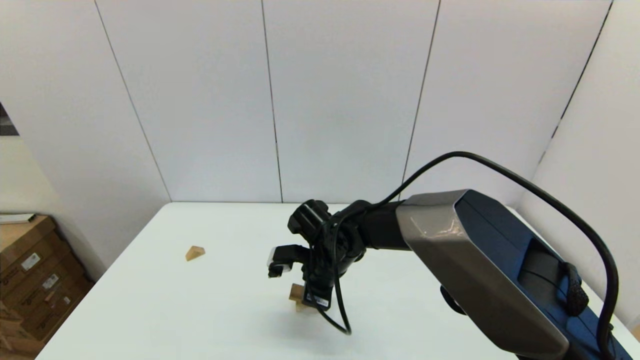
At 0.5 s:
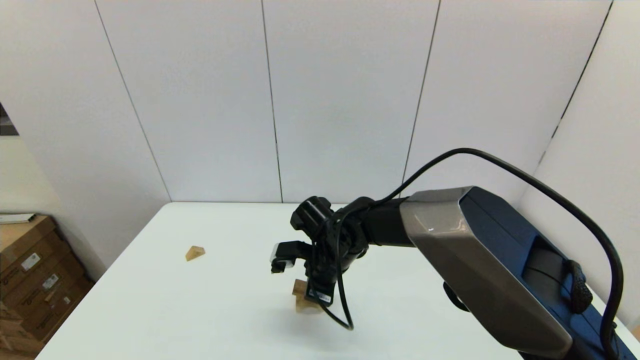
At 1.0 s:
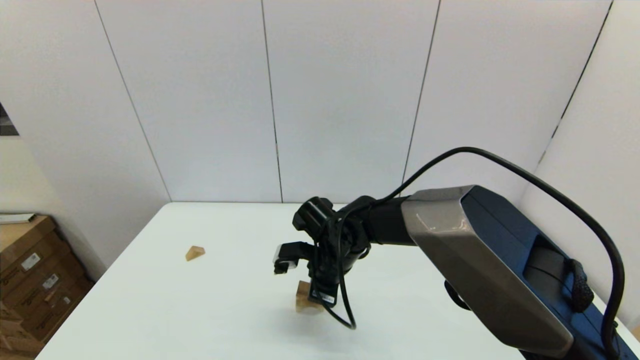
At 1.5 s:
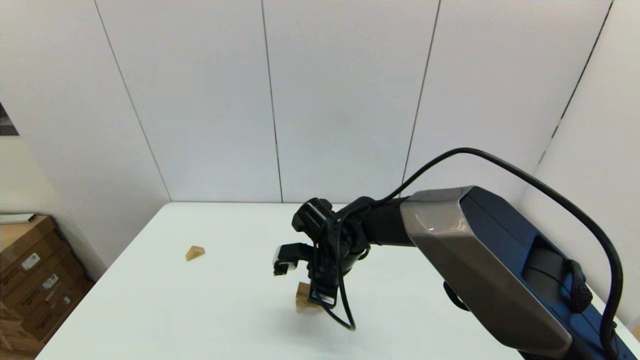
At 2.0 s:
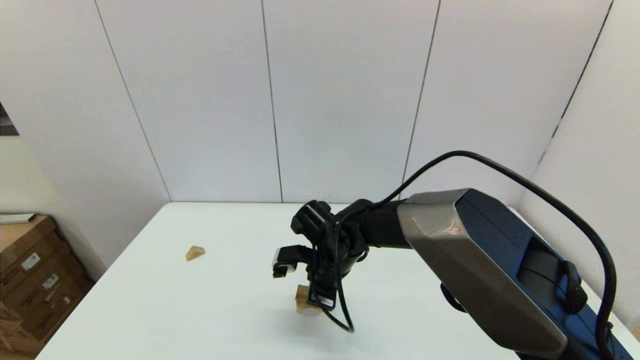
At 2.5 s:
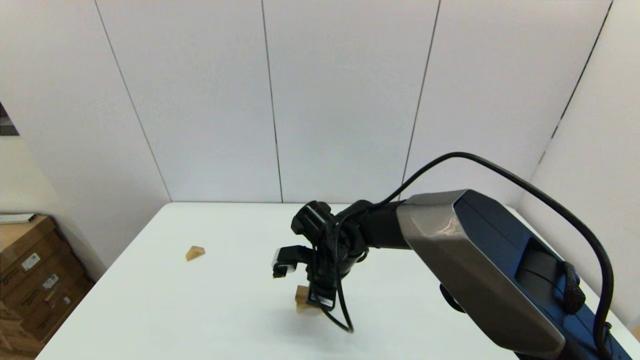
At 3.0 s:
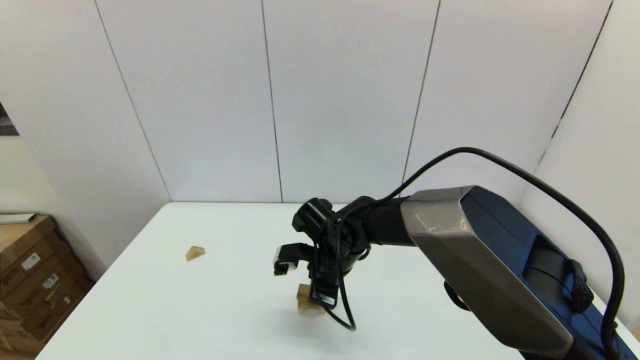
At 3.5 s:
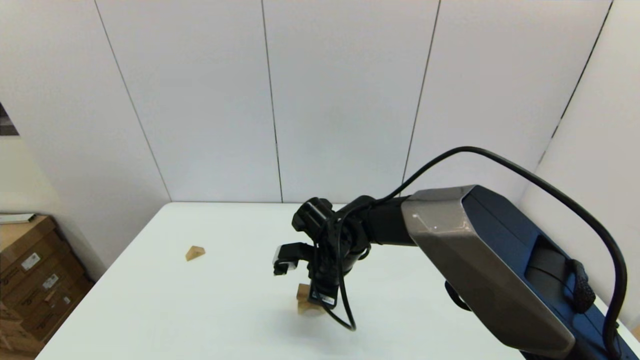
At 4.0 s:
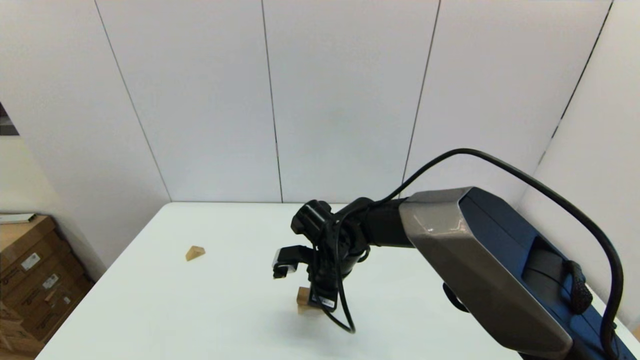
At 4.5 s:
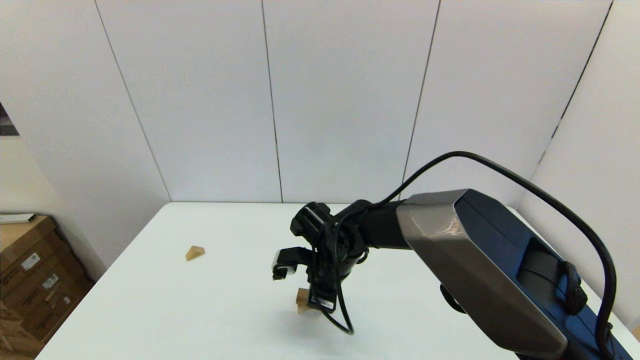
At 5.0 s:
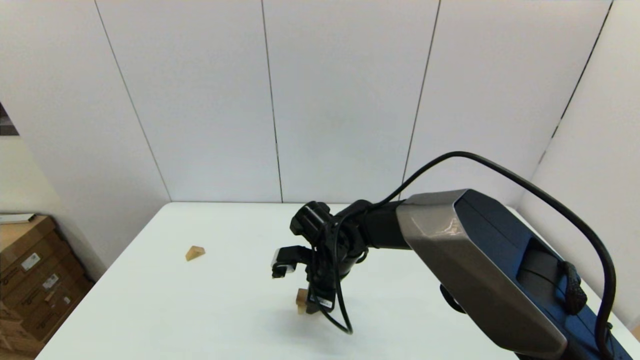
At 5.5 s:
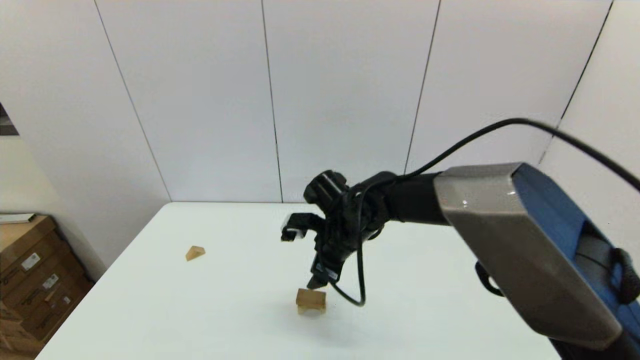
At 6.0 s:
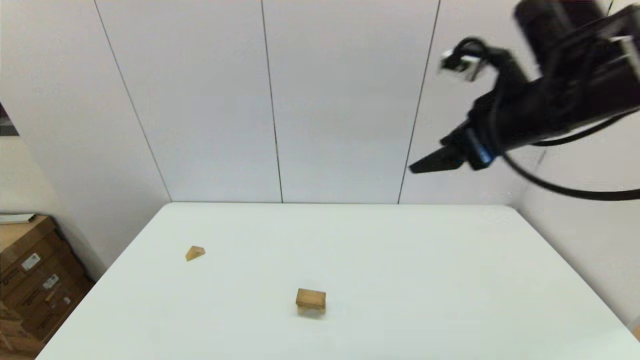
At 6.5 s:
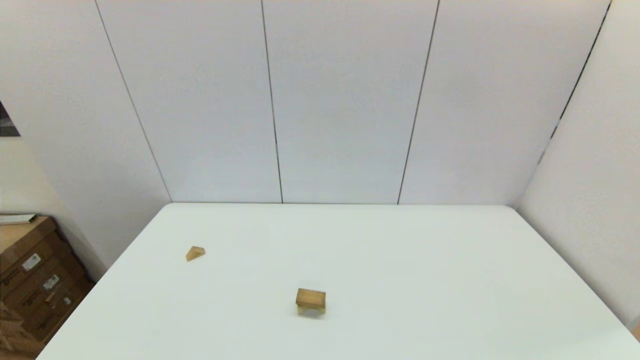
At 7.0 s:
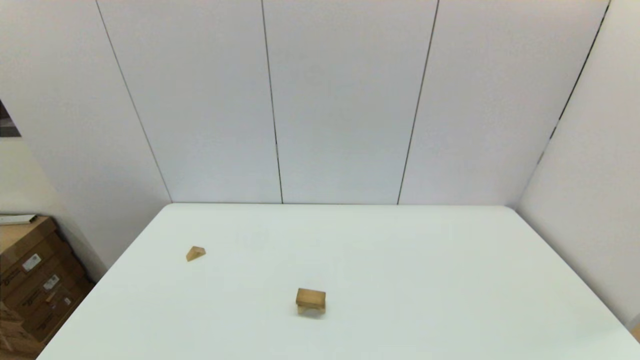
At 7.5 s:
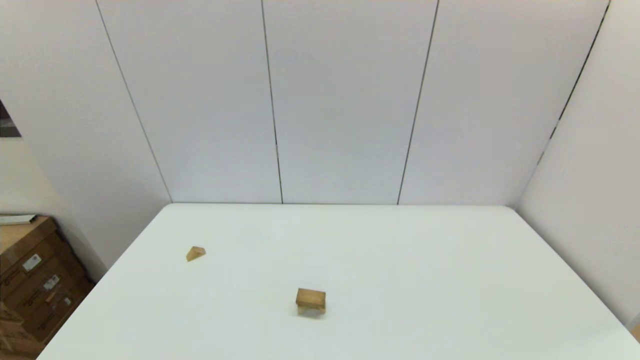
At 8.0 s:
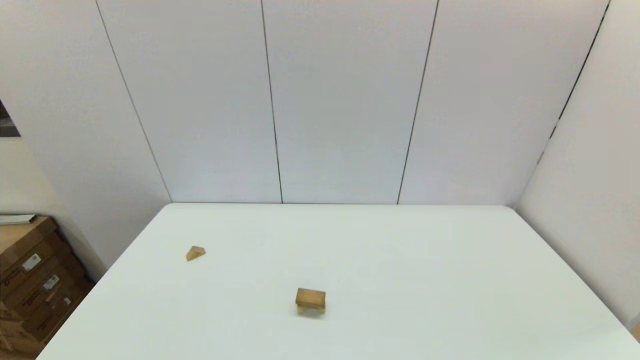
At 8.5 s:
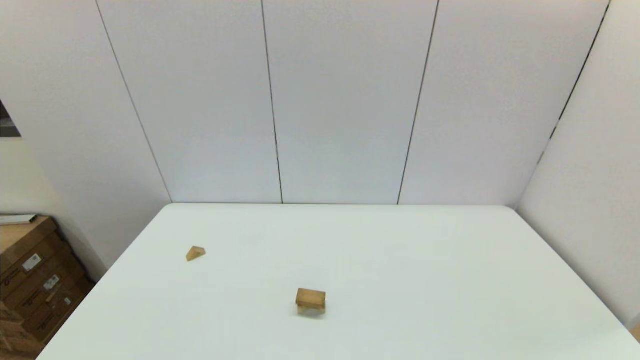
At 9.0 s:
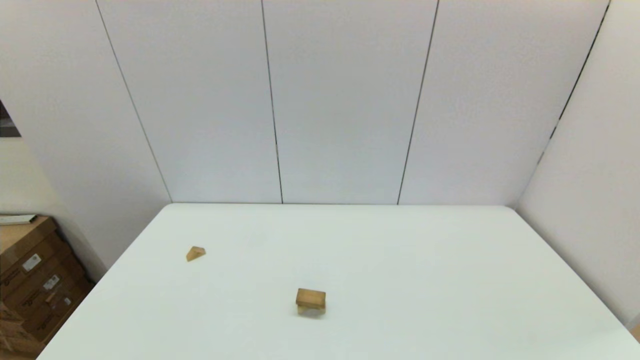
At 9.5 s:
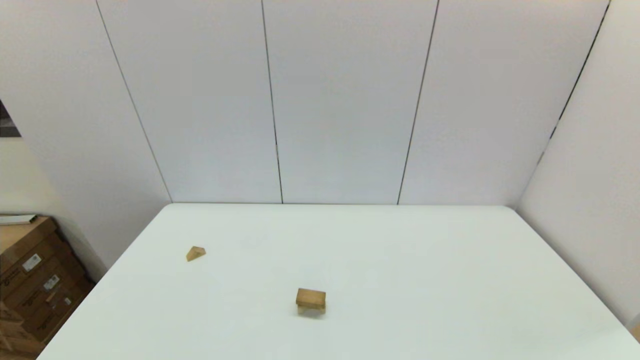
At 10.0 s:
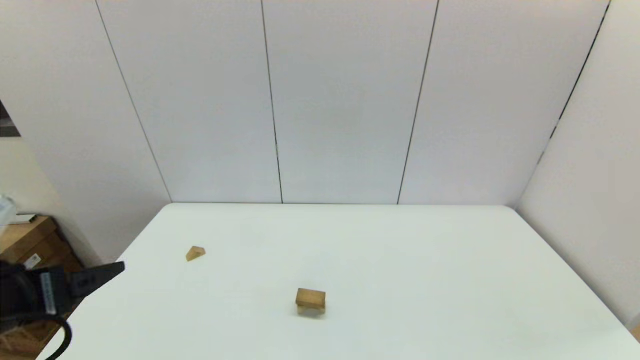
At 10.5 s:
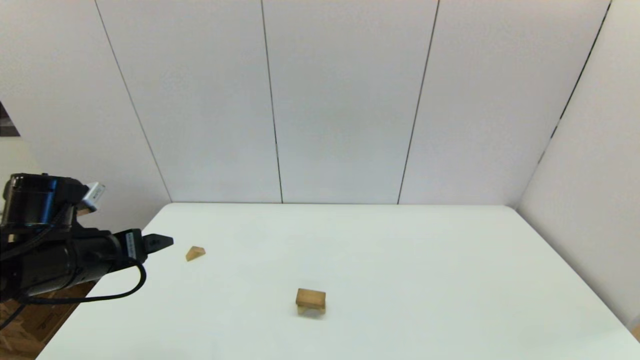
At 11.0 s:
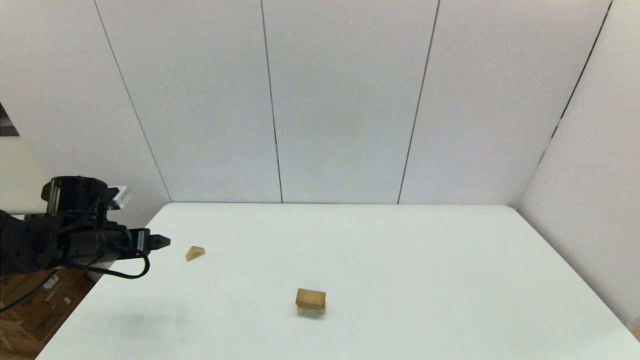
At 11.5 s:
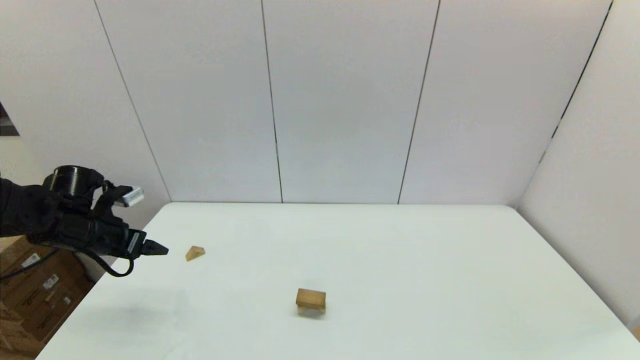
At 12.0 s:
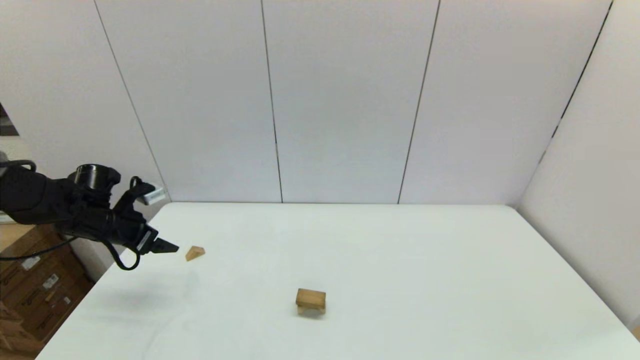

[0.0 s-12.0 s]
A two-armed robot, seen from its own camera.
Task of the whole recording: place the arched building blocks in the center of the table, set up the rectangular building blocks, and then set up the triangular building blocks.
Step, 0.0 to 4.5 s: Place the box-shaped block onto the arch-shaped block with the right gripper.
0.0 to 4.0 s: Both grippers stay put.
4.0 to 6.0 s: The right gripper heads upward and to the right, covering some 35 cm, and opens.
6.0 to 8.0 s: The right gripper goes roughly 40 cm backward and downward.
8.0 to 10.0 s: The left gripper shifts roughly 20 cm forward and upward.
10.0 to 12.0 s: The left gripper shifts roughly 25 cm forward and downward.

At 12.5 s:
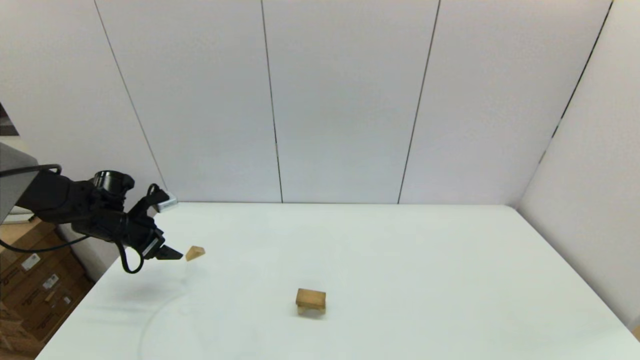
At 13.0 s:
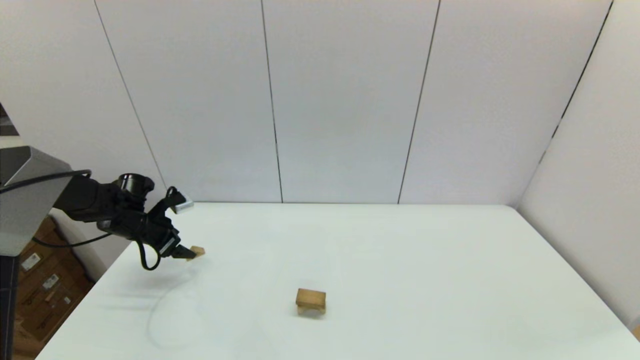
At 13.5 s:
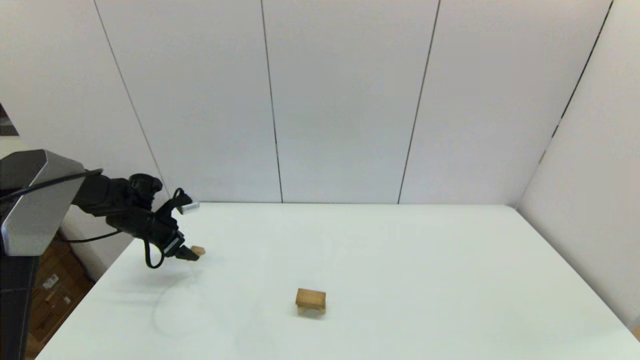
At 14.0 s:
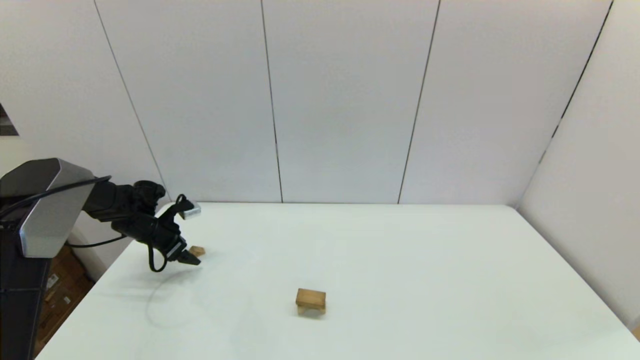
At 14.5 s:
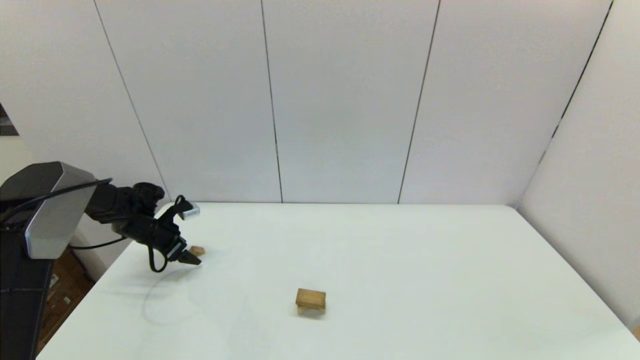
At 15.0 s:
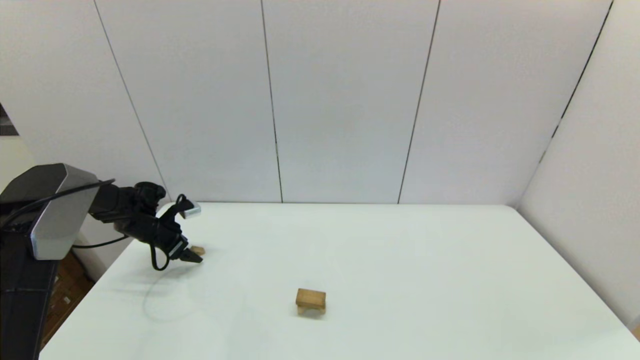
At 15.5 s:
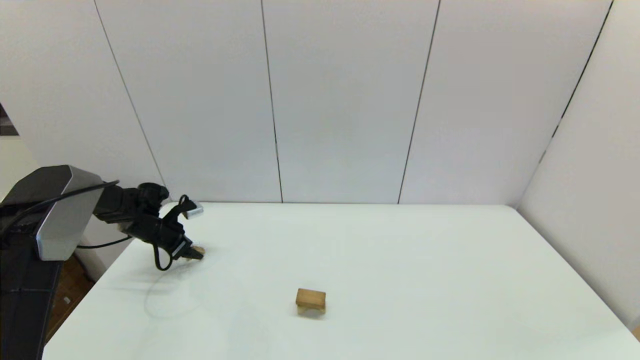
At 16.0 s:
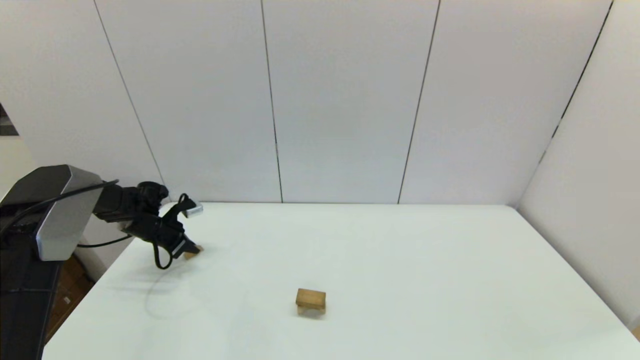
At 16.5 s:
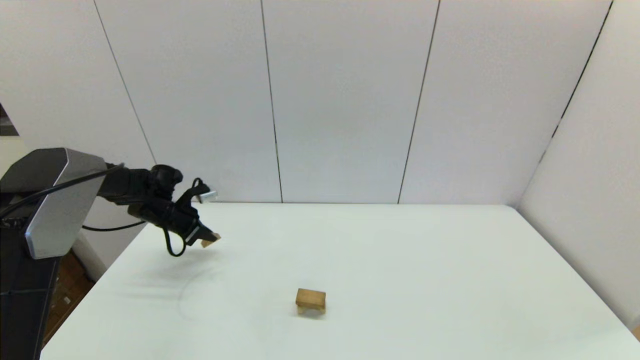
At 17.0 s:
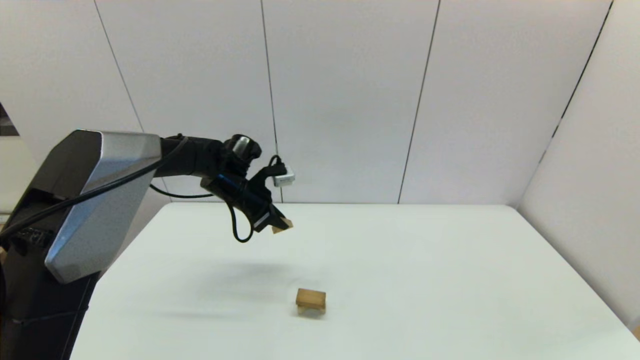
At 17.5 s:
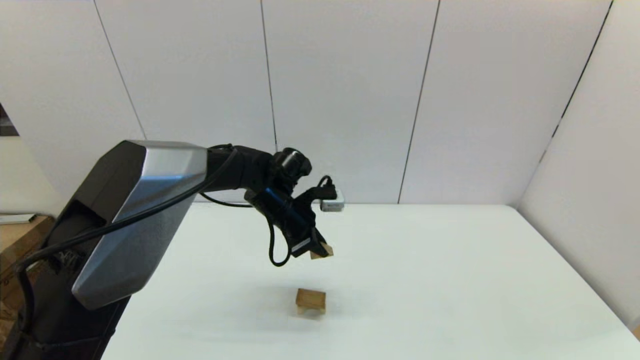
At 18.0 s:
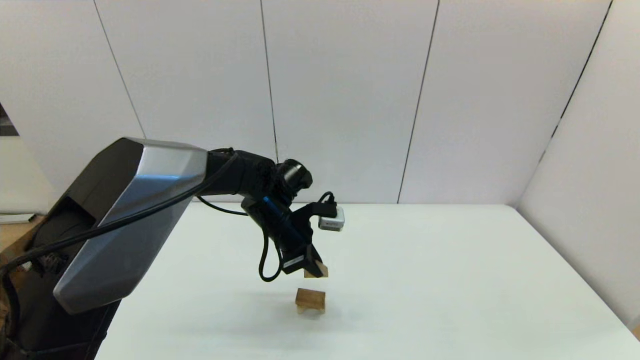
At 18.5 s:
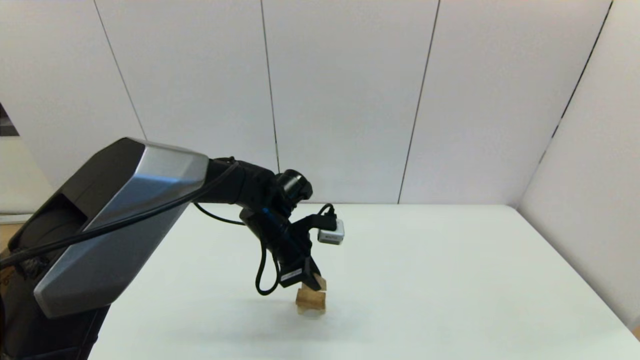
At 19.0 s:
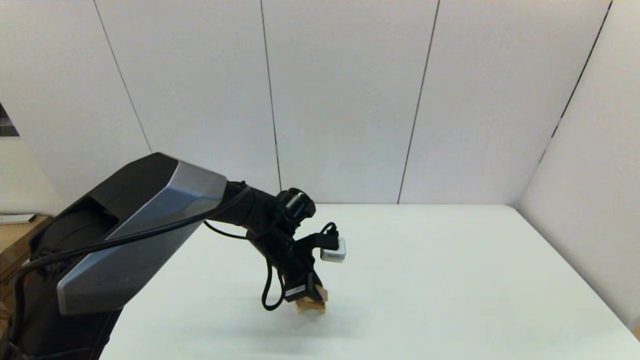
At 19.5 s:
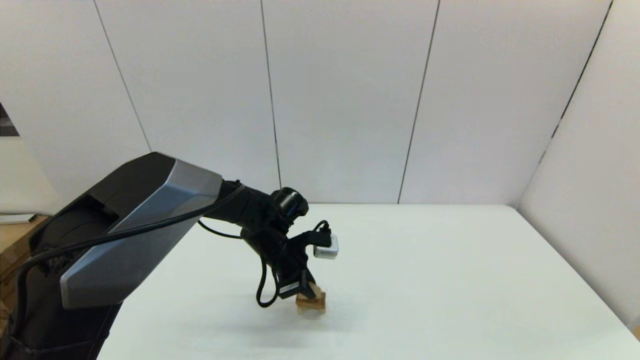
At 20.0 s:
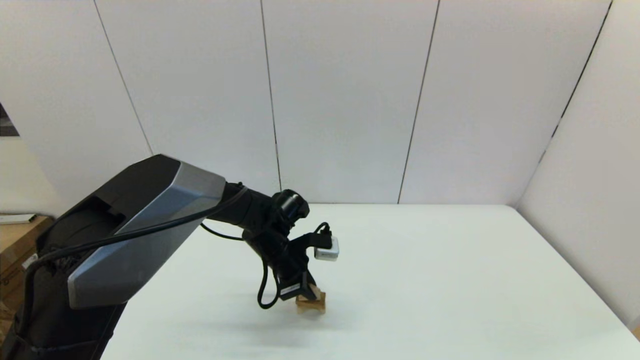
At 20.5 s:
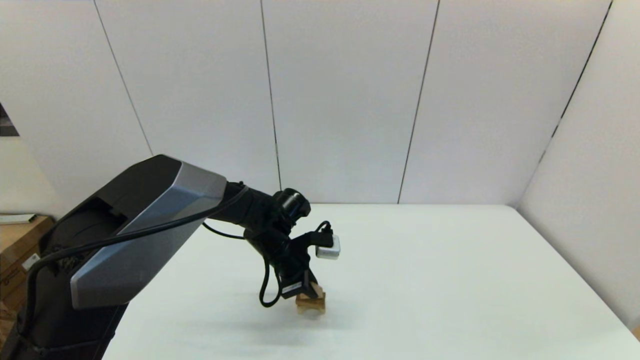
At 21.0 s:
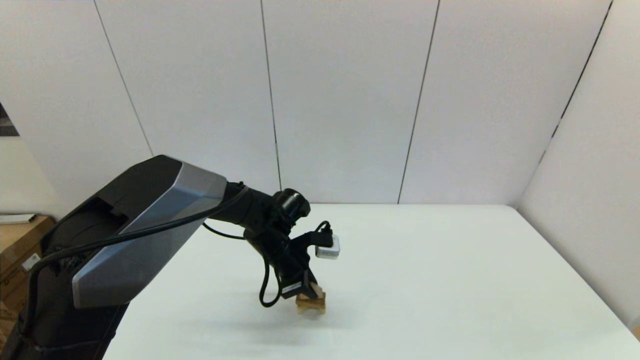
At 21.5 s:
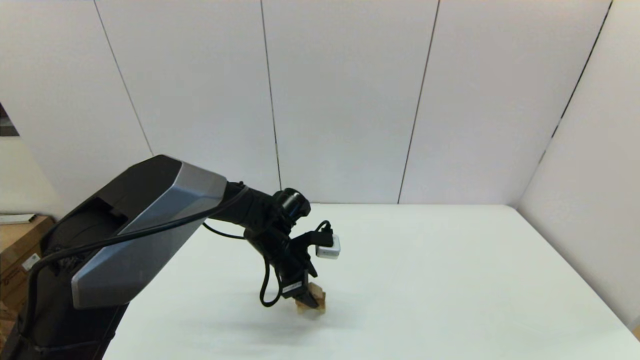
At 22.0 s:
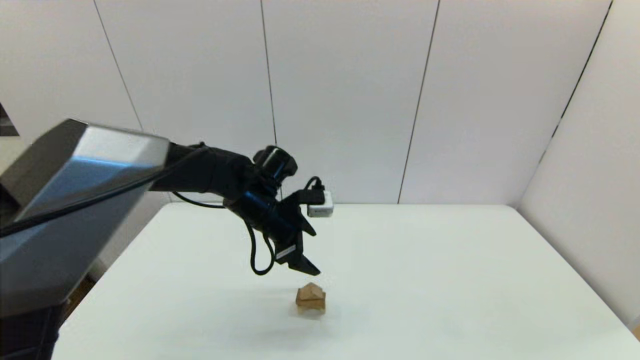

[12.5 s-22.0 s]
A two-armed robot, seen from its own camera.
Task of the whole recording: place the arched building blocks in the center of the table, set up the rectangular building blocks, and then set up the triangular building blocks.
Step, 12.5 to 15.5 s: Grasp the triangle-shaped block with the left gripper.
12.5 to 14.5 s: The left gripper shifts about 10 cm downward and forward.
14.5 to 16.5 s: The left gripper goes roughly 5 cm to the right, and closes up.
16.5 to 18.0 s: The left gripper goes roughly 25 cm to the right.
18.0 to 20.0 s: The left gripper goes approximately 5 cm downward.
20.0 to 22.0 s: The left gripper goes some 10 cm upward, and opens.
